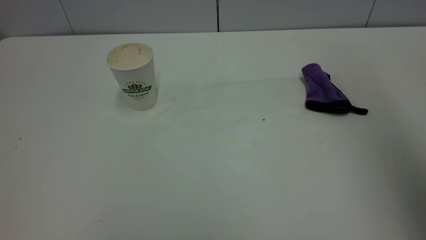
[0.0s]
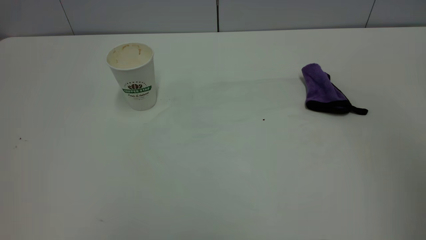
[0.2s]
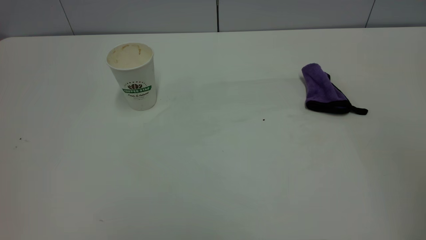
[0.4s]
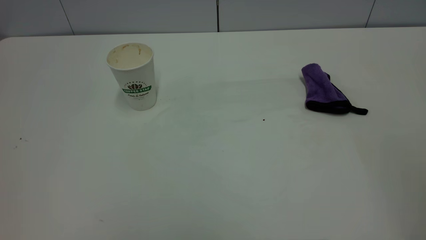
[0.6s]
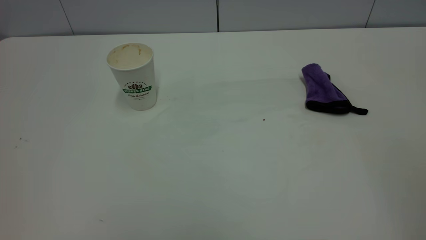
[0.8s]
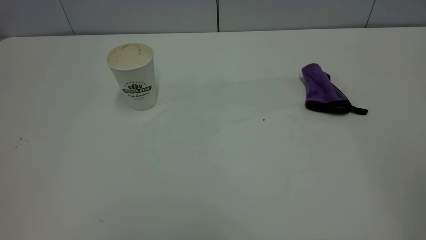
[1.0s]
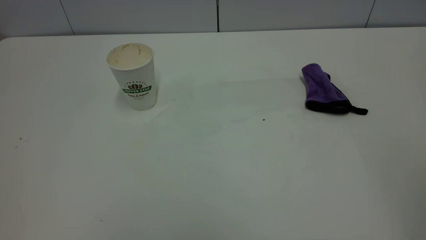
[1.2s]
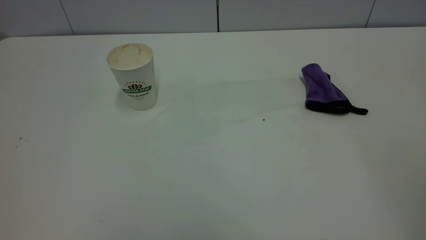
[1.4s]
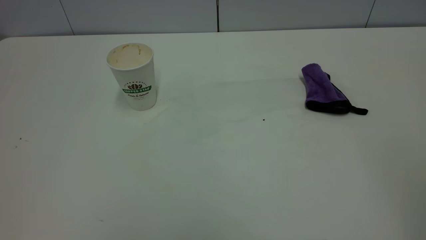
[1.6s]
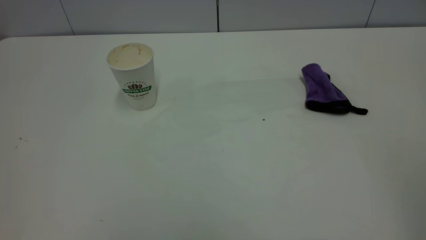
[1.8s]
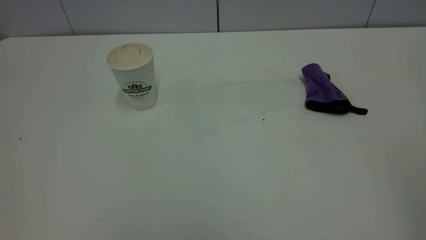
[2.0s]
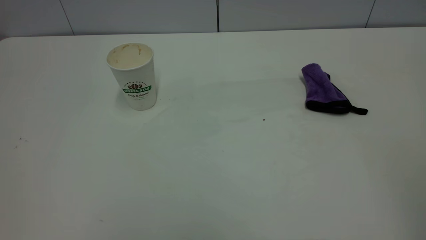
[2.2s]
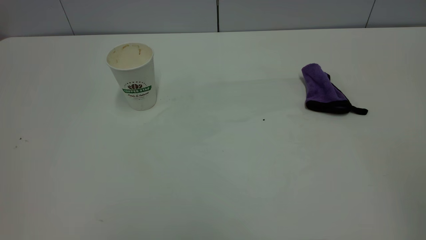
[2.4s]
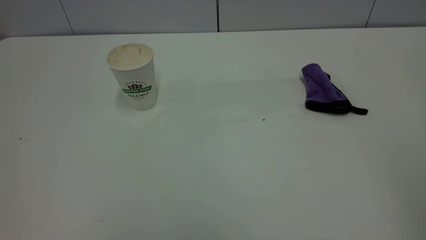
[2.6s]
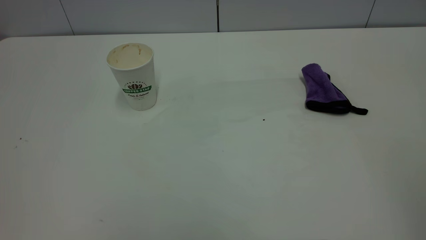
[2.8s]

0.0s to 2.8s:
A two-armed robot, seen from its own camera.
Task of the whole recording: the left gripper pick up the fallen cup and place it upright, the right gripper grasp the purple rag and wipe the coffee stain on the table, the right gripper put the purple rag back in its original position.
0.0s to 1.4s: The right gripper moves backward and downward, some 20 cm.
